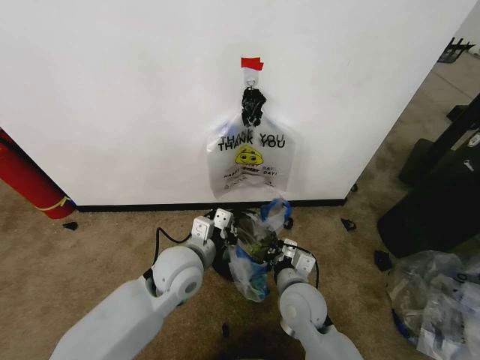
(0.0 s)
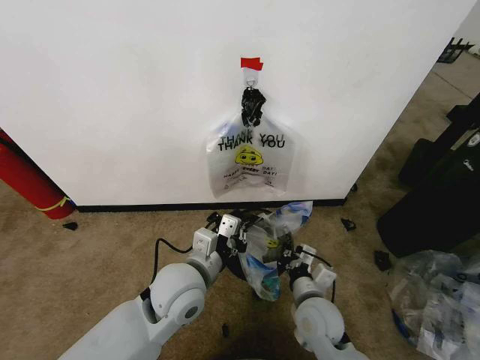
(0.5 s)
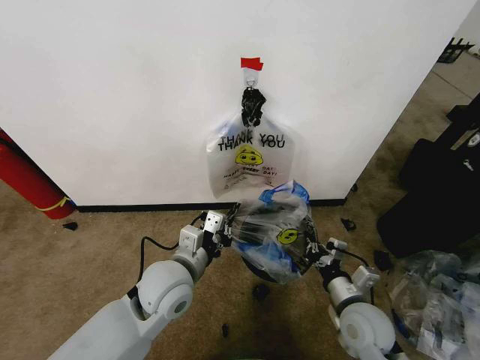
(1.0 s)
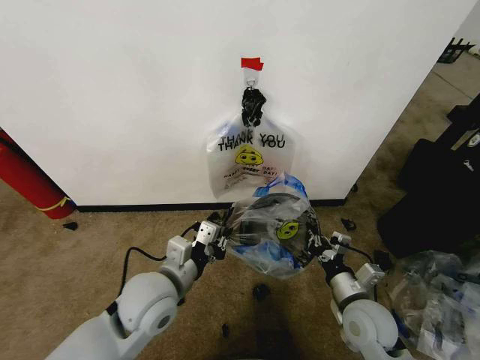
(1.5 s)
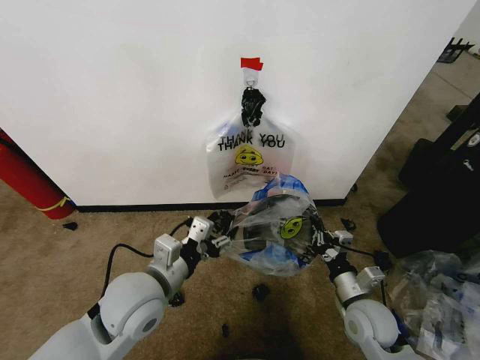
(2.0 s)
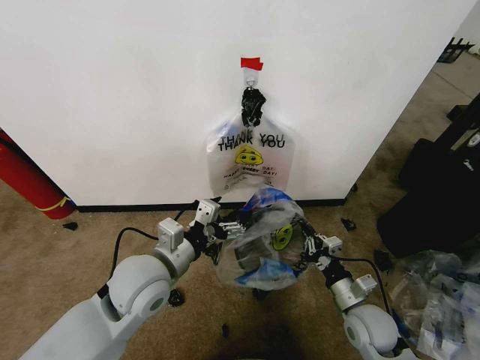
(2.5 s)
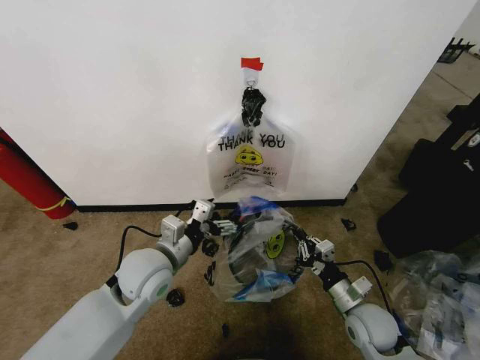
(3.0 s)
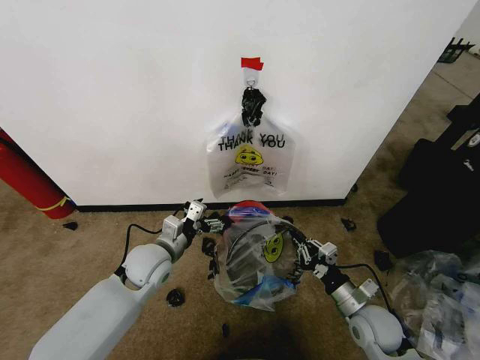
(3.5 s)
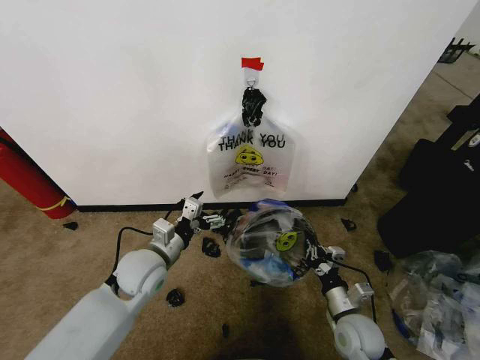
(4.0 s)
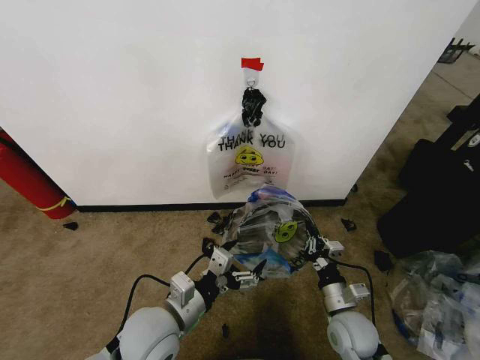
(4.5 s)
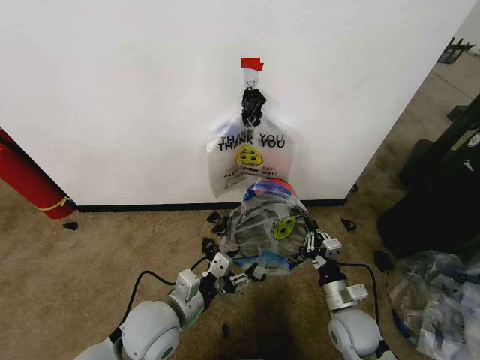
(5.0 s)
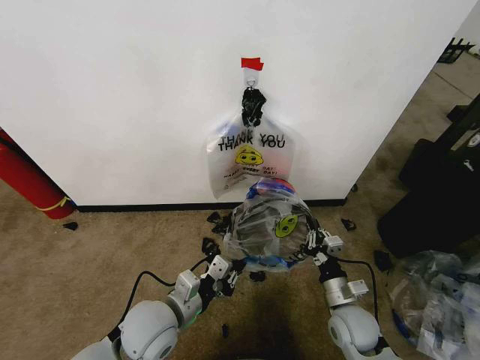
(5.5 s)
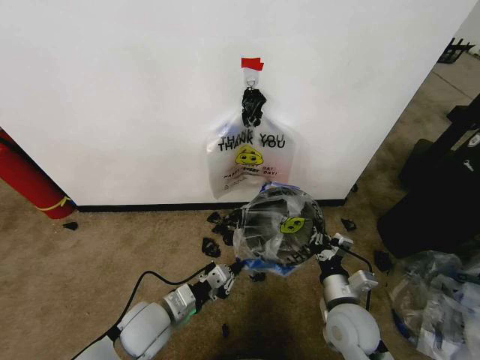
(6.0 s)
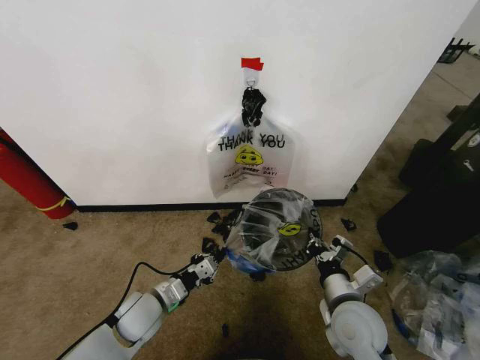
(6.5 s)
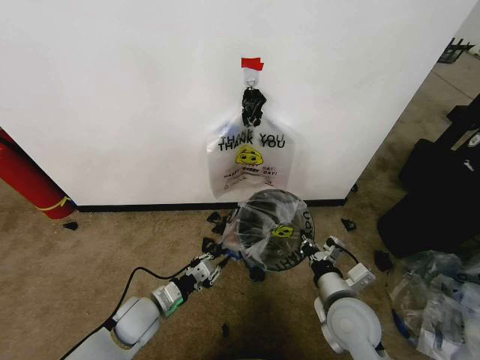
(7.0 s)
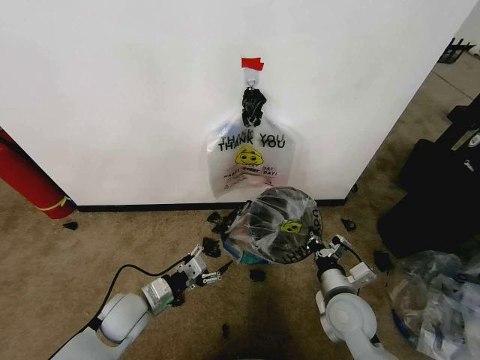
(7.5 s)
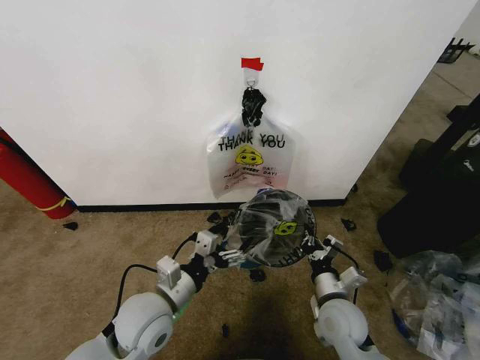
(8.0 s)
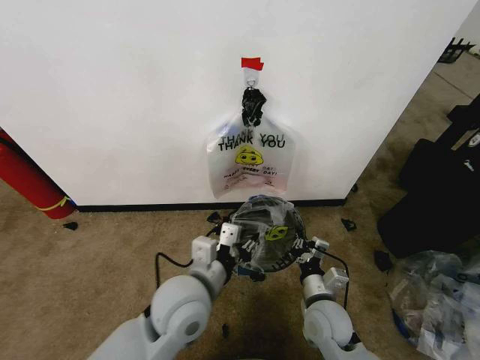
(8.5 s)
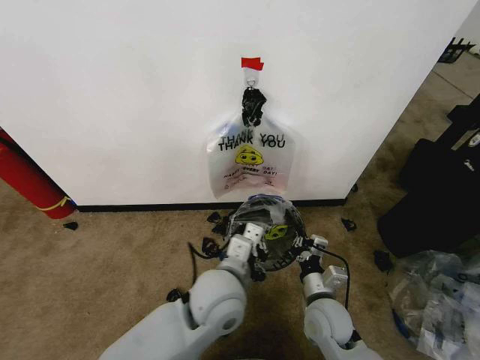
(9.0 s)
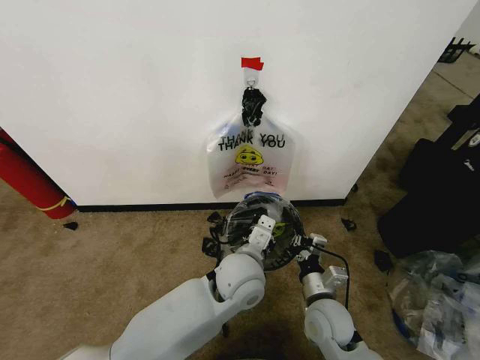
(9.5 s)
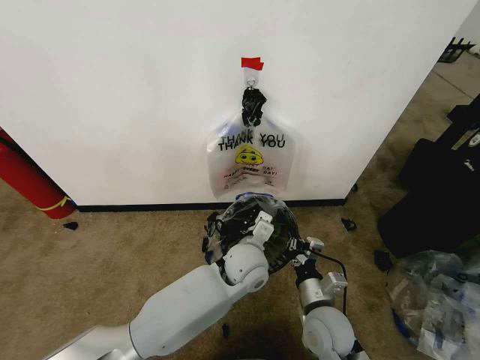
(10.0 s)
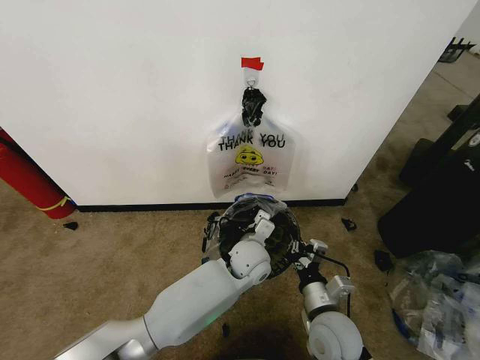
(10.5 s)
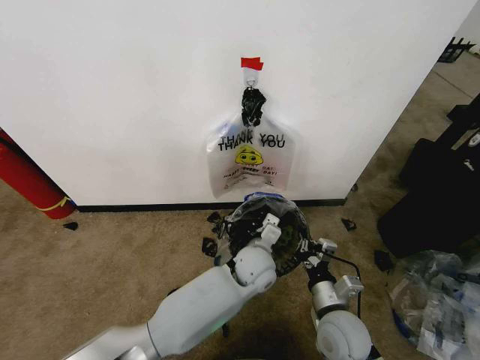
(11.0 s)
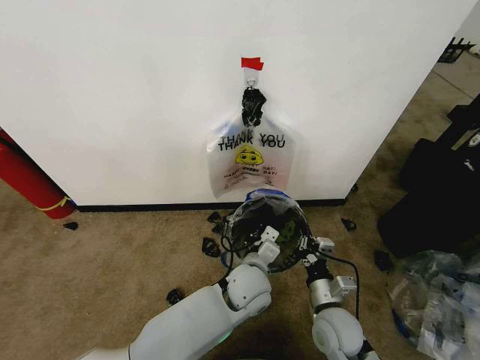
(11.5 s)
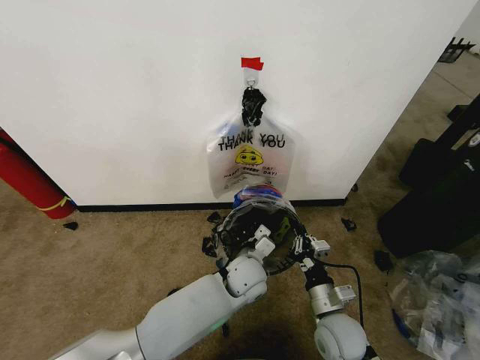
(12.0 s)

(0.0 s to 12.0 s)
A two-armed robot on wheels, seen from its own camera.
Task of the whole recording: Pick up the garbage bag from the wall and place it over the trash bin.
0.0 s - 2.0 s: The left gripper shifts some 10 cm backward and to the left, and opens, while the right gripper is displaced to the right by about 15 cm.
2.0 s - 4.0 s: The right gripper travels downward by about 5 cm, while the left gripper is displaced forward and downward by some 10 cm.
4.0 s - 6.0 s: The left gripper goes about 10 cm backward and downward, and closes. Meanwhile the right gripper travels upward by some 5 cm.
6.0 s - 8.0 s: The left gripper goes roughly 10 cm upward, and opens up.
8.0 s - 10.0 s: The left gripper is displaced to the right and forward by approximately 20 cm, and closes.
10.0 s - 12.0 s: The left gripper heads downward, covering roughly 5 cm.

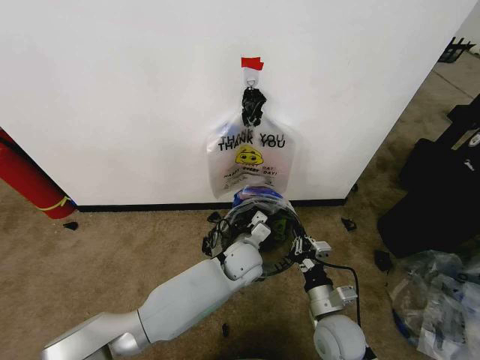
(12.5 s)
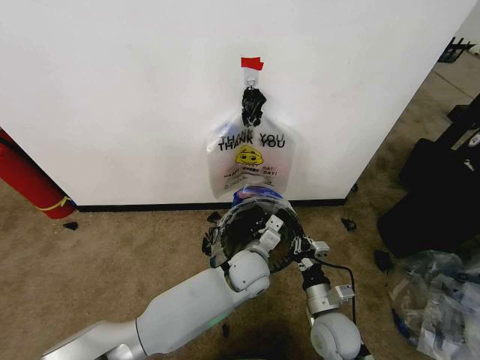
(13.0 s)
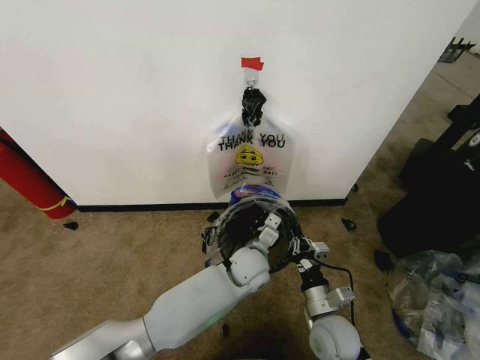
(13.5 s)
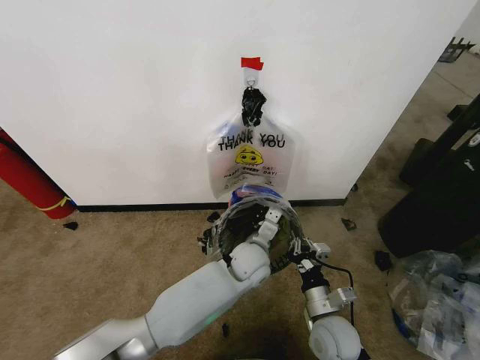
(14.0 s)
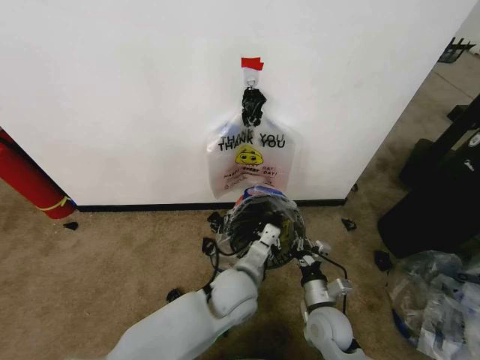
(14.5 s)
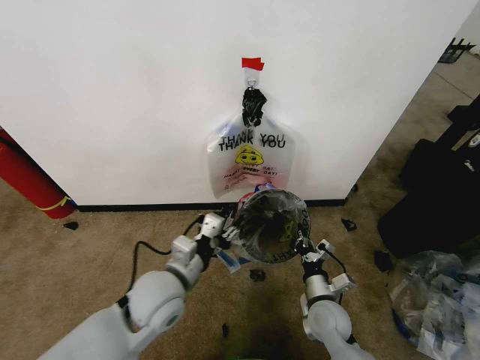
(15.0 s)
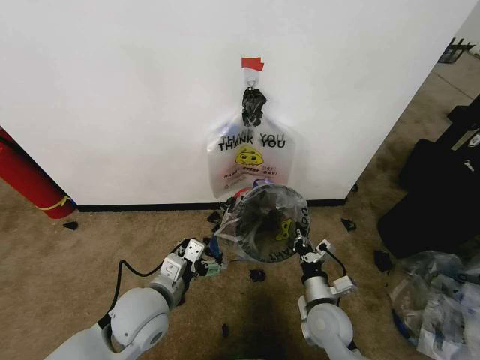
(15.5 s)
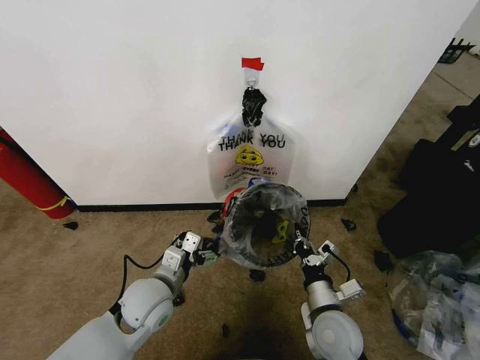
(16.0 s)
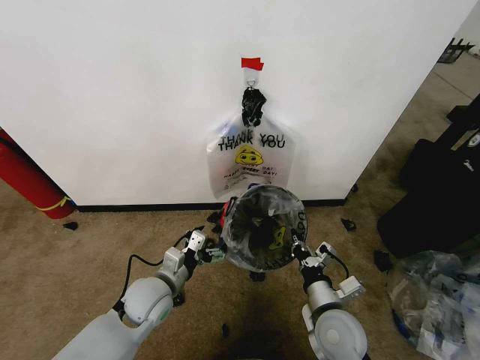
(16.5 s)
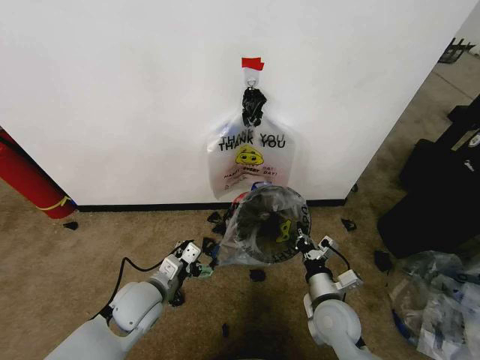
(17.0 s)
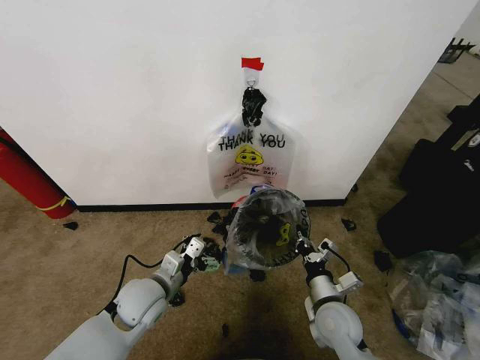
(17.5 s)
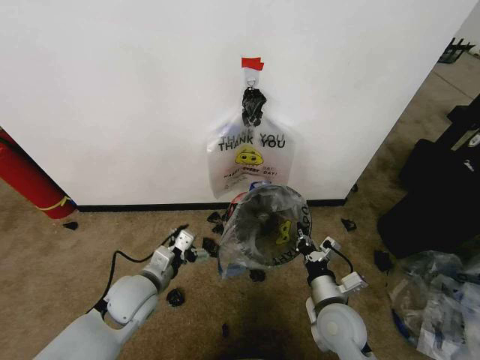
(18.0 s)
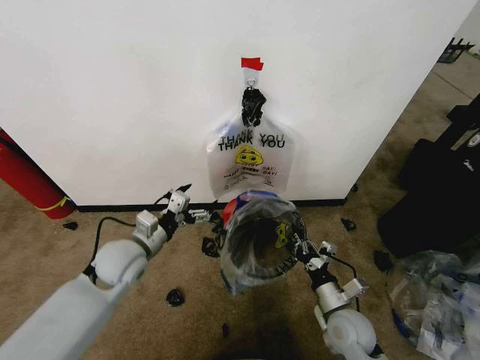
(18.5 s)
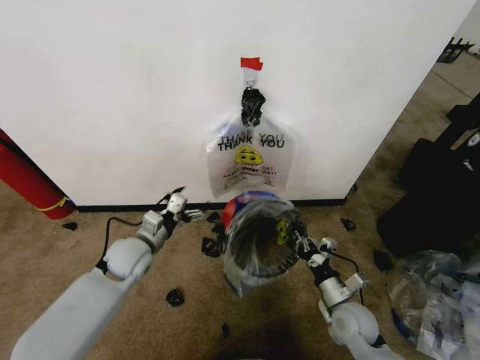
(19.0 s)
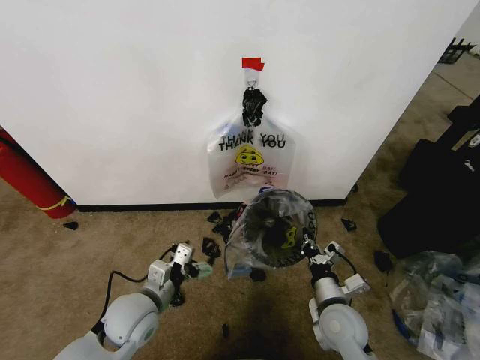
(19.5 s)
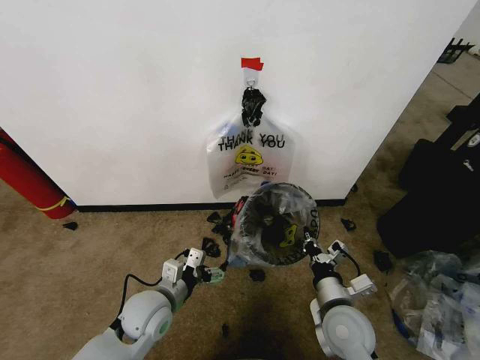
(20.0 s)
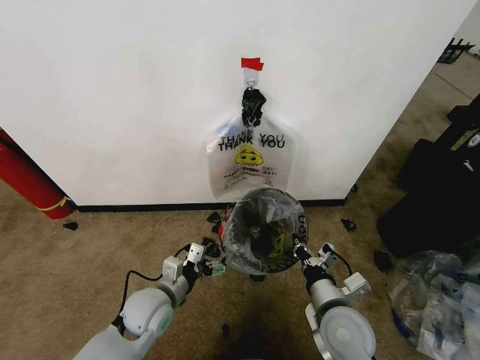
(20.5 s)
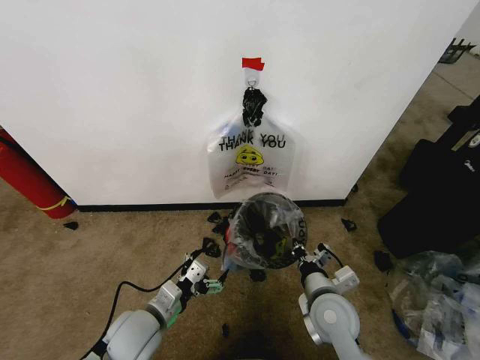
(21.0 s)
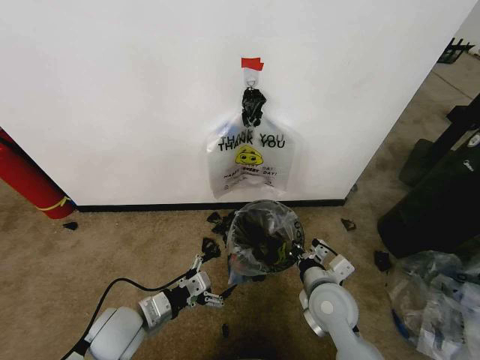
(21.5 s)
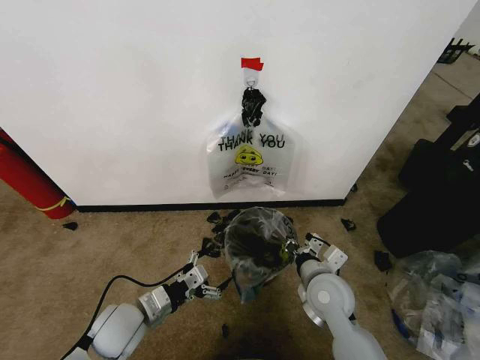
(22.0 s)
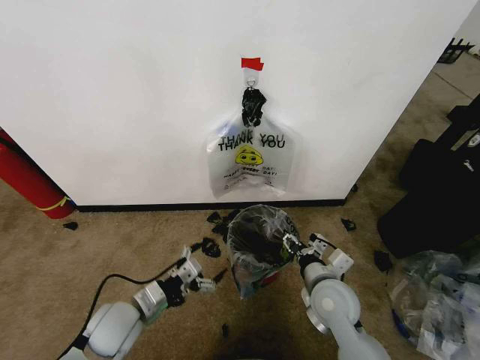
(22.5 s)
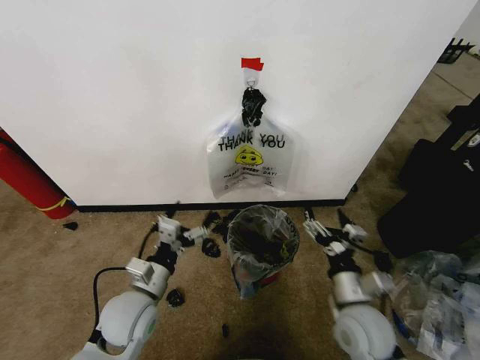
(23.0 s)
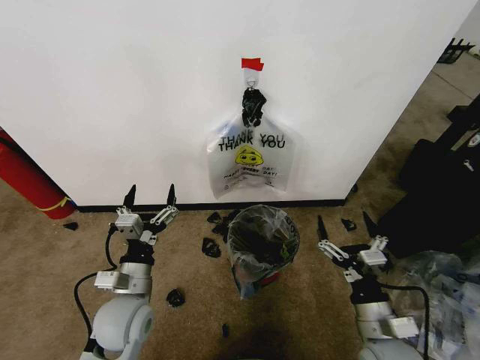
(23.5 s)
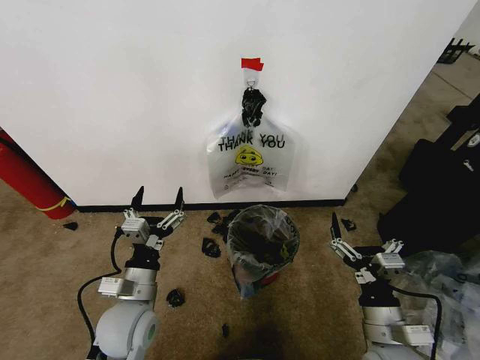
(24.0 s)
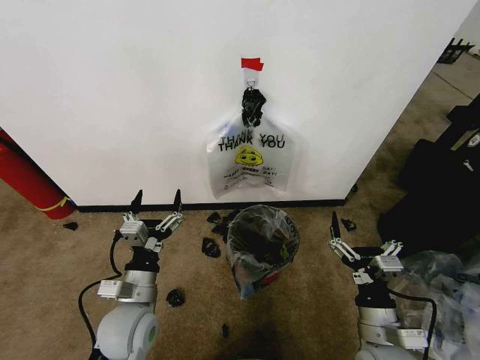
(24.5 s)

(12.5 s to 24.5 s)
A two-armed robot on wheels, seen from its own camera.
Task of the whole recording: Pick up the garbage bag from the wall and place it over the trash bin.
12.5 s - 14.5 s: The left gripper moves backward, roughly 10 cm.
14.5 s - 16.5 s: The left gripper heads to the left, covering some 20 cm, and opens up. The right gripper heads upward, covering some 5 cm.
16.5 s - 18.5 s: The right gripper moves downward, about 5 cm, while the left gripper is displaced upward, forward and to the left by some 10 cm.
18.5 s - 20.5 s: The right gripper is displaced upward by roughly 10 cm. The left gripper heads downward, backward and to the right, covering about 10 cm.
20.5 s - 22.5 s: The right gripper shifts approximately 5 cm forward, and opens up. Meanwhile the left gripper travels to the left by approximately 5 cm.
22.5 s - 24.5 s: The left gripper changes place by some 5 cm; the right gripper heads backward and to the right, covering approximately 15 cm.

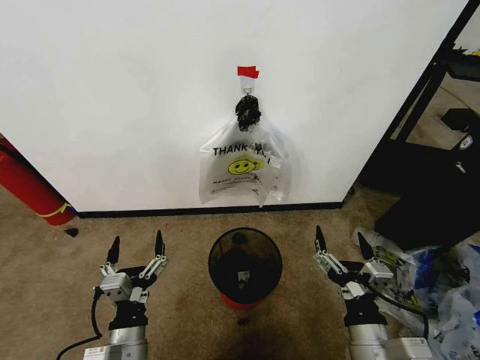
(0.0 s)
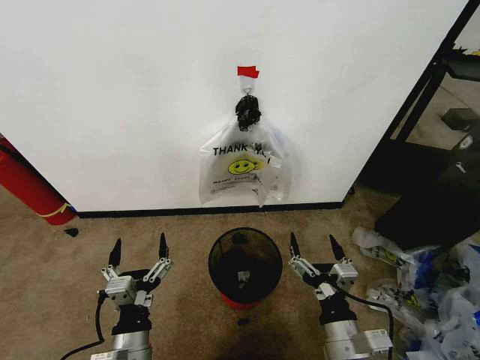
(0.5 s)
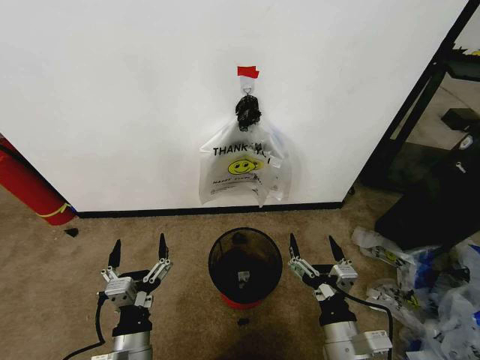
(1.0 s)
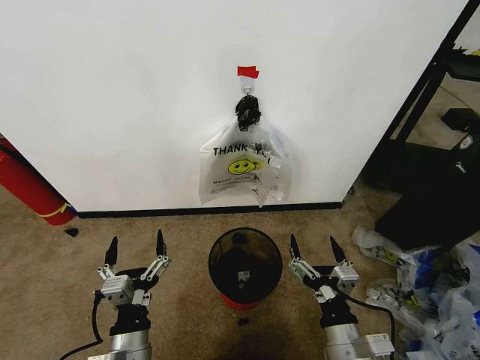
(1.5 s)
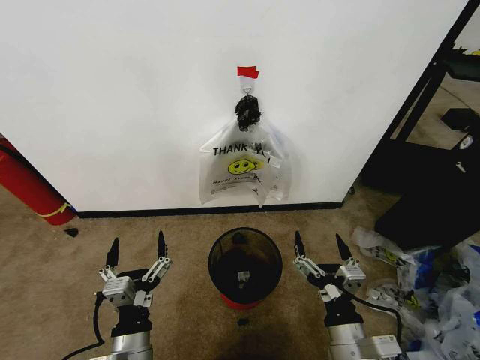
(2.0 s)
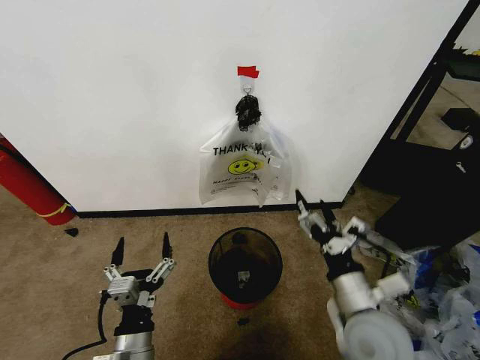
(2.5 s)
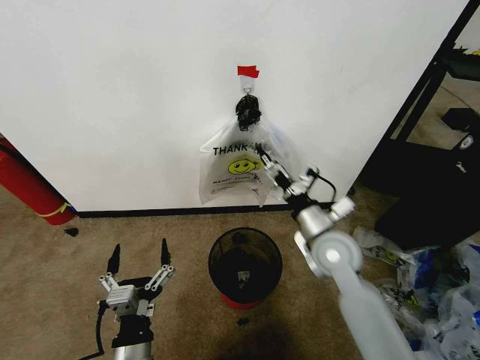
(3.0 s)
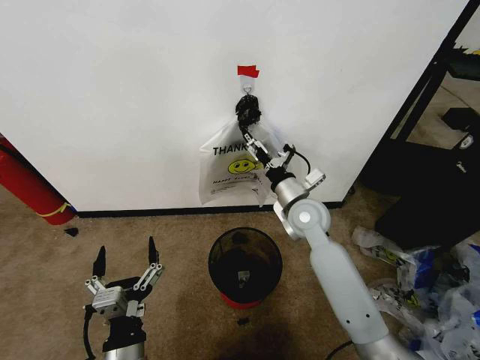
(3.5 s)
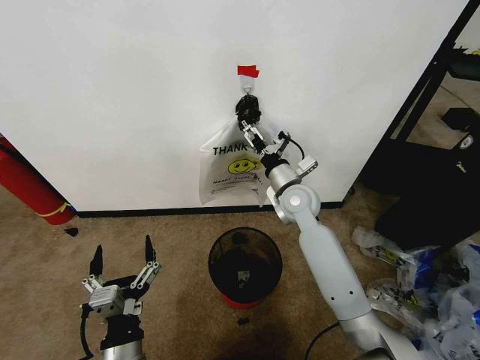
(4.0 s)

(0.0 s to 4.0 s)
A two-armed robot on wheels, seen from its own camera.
Task of the whole recording: Pick up the garbage bag from the wall and place it over the trash bin.
2.0 s - 4.0 s: The right gripper is displaced forward by roughly 35 cm.
